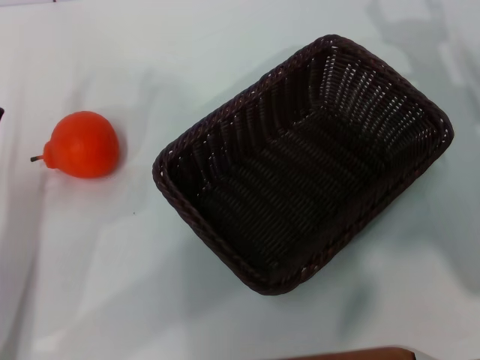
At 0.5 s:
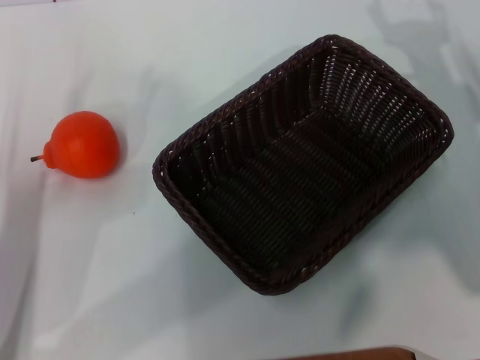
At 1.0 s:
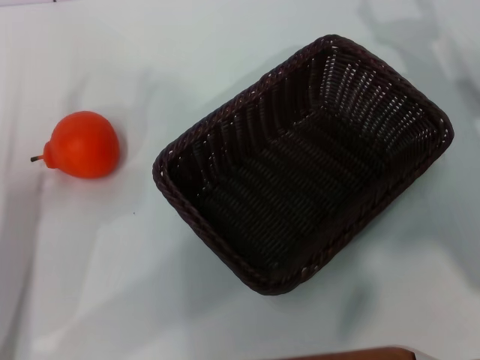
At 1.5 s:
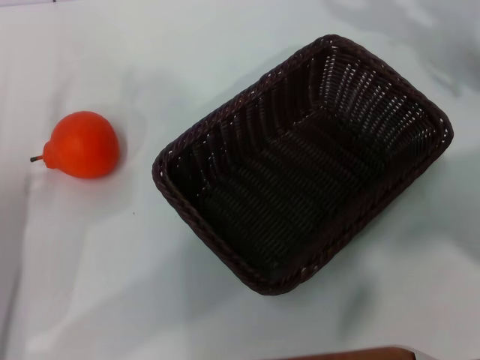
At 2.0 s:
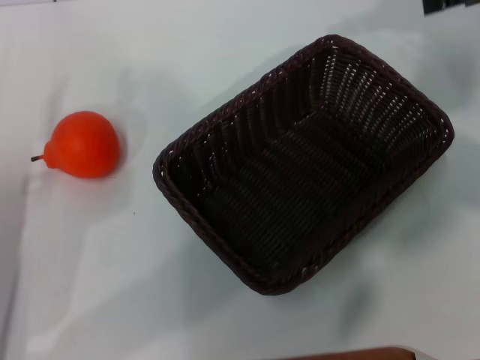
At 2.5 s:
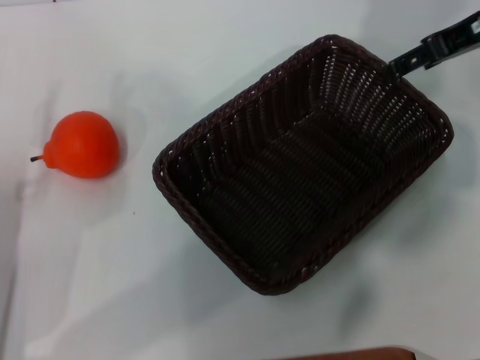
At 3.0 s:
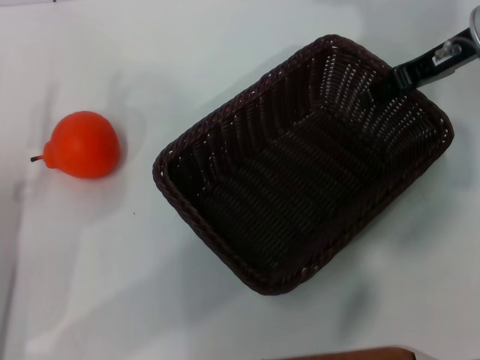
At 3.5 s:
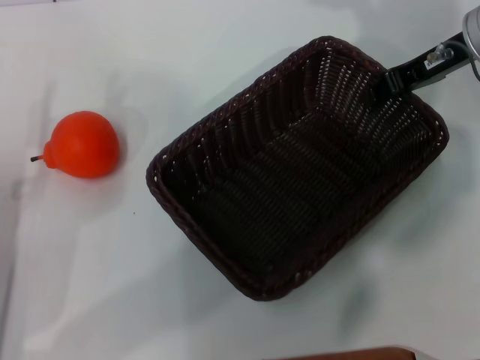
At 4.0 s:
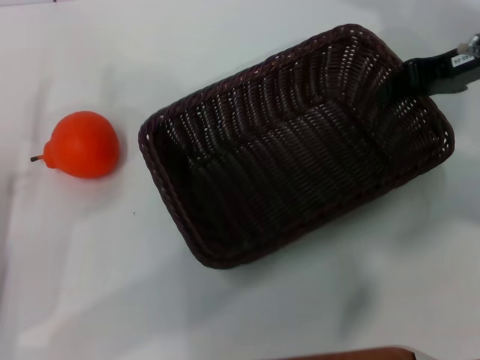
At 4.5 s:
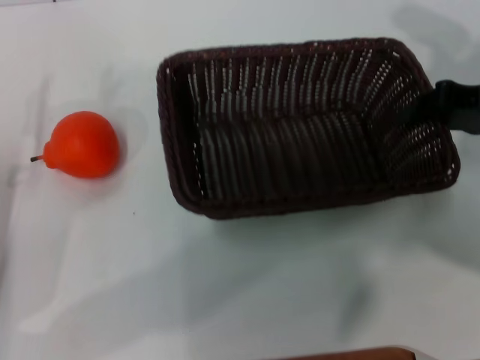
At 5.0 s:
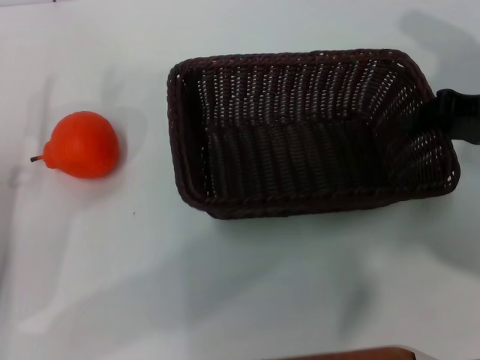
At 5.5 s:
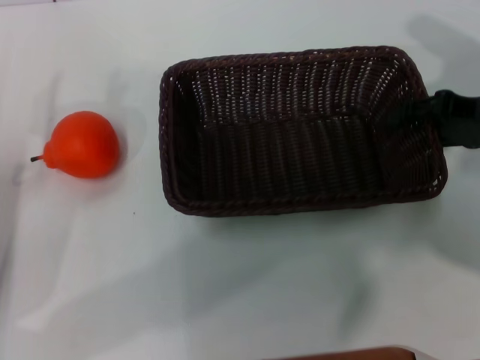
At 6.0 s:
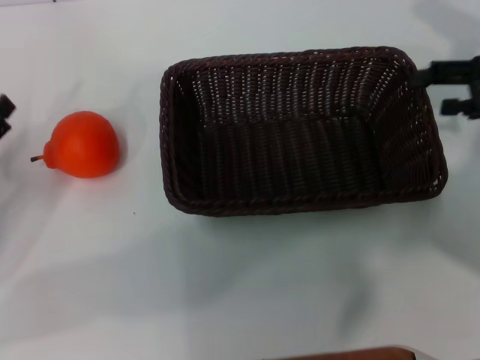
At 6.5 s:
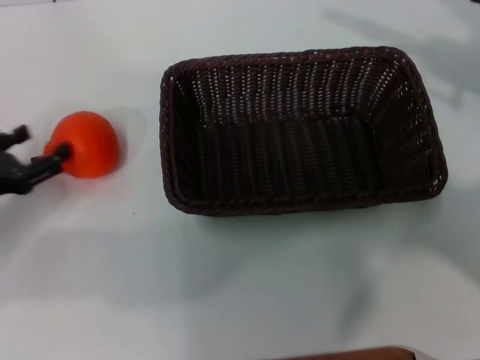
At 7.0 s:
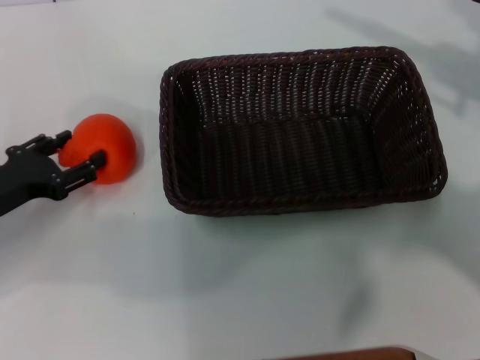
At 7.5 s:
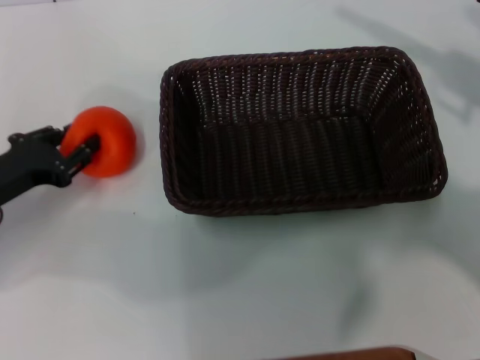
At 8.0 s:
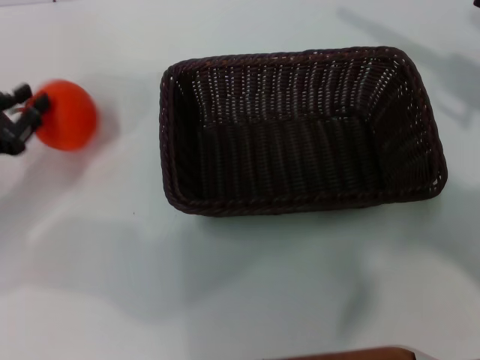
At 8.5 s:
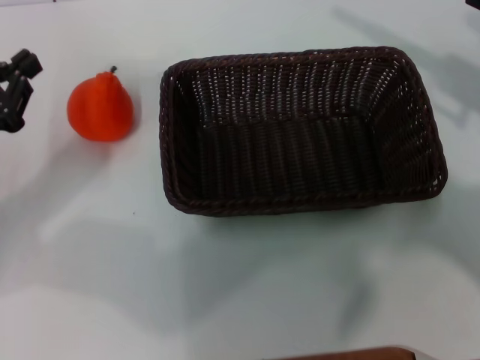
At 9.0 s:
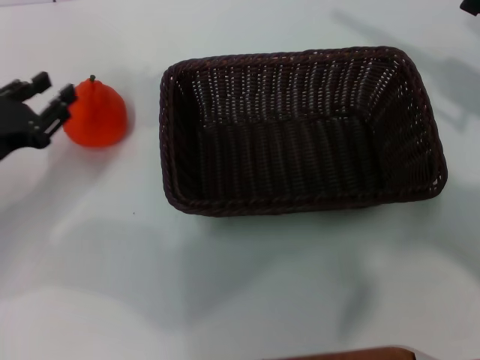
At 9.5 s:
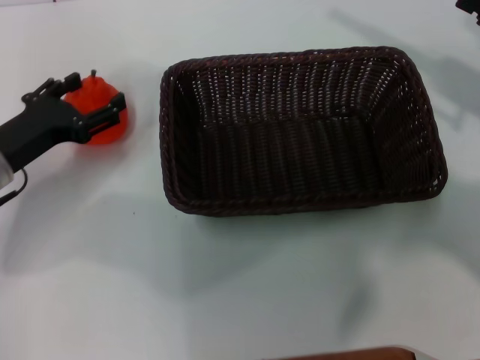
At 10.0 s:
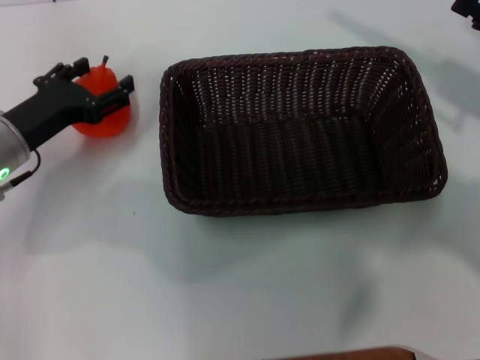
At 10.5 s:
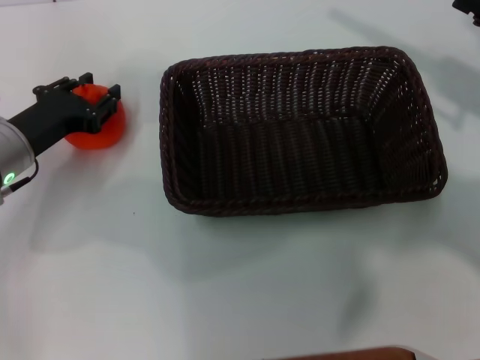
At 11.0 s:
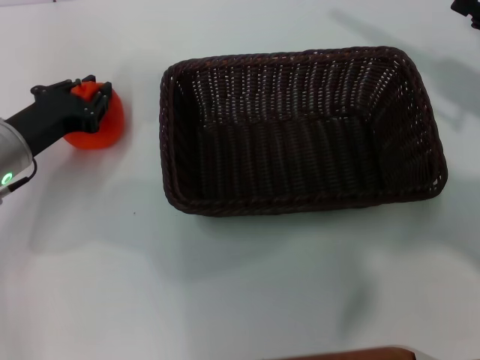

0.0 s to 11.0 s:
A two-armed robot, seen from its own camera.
Task of the whole recording: the right gripper pick up the black basket and place it horizontally in the middle of the table, the left gripper pick up the orange and place it into the black basket.
Step, 0.0 to 4.0 s: Pick up the dark basket with the right gripper.
Step, 4.5 to 5.5 s: Place the dark basket in the center of view with the right gripper.
0.0 to 2.0 s: The right gripper shifts roughly 20 cm upward.
2.0 to 3.5 s: The right gripper shifts roughly 10 cm downward and to the left, and closes up.
3.5 to 5.5 s: The right gripper travels backward and to the right by approximately 10 cm.
5.5 to 7.5 s: The right gripper is displaced to the right by some 5 cm, and opens its fingers. The left gripper shifts approximately 5 cm forward, and closes up.
7.5 to 9.0 s: The left gripper closes.
9.0 to 11.0 s: The left gripper ends up about 5 cm from where it was, and opens and closes again.

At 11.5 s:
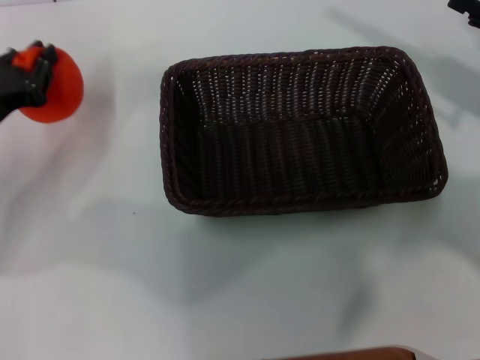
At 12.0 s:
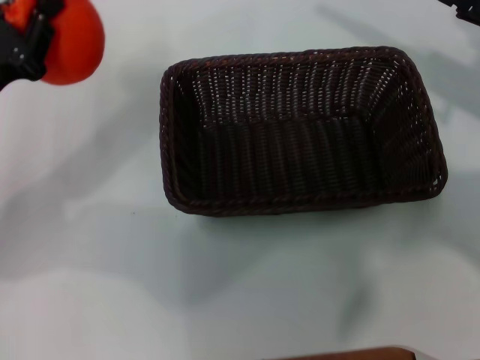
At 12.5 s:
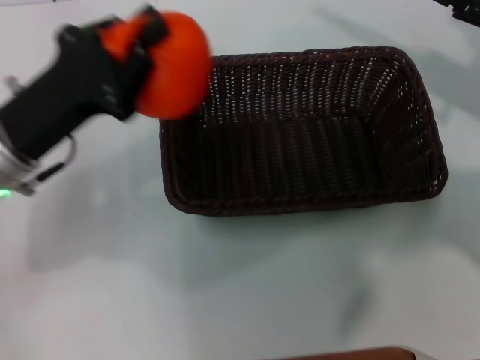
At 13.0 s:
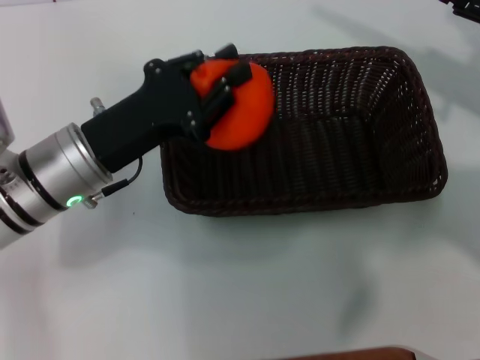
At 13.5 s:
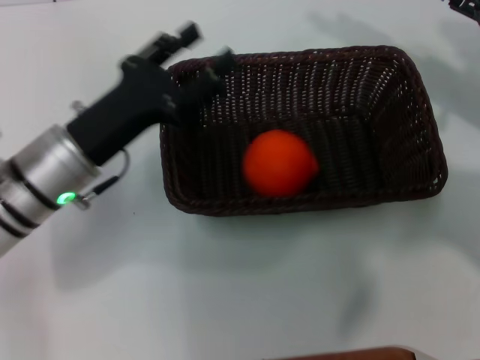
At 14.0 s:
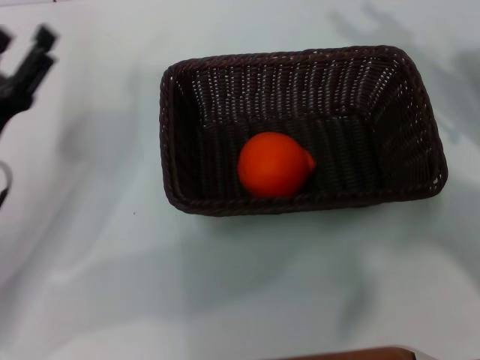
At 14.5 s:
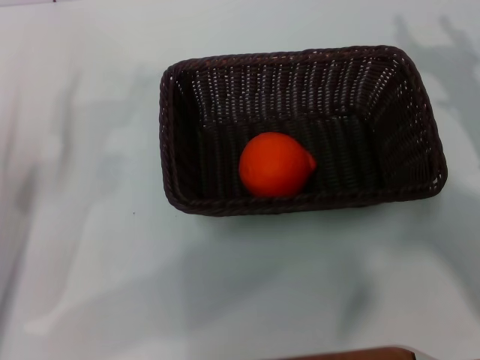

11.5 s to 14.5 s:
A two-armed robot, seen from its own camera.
Task of the whole recording: the right gripper pick up the black basket and place it horizontally in the middle of the table, the left gripper pick up the orange and place it into the black basket.
Step, 11.5 to 13.0 s: Place the orange into the dark basket with the left gripper.
11.5 to 13.0 s: The left gripper shifts about 10 cm to the right.
13.0 to 14.5 s: The left gripper shifts roughly 15 cm to the left, backward and downward, and opens. Meanwhile the right gripper heads downward and backward, covering about 10 cm.
